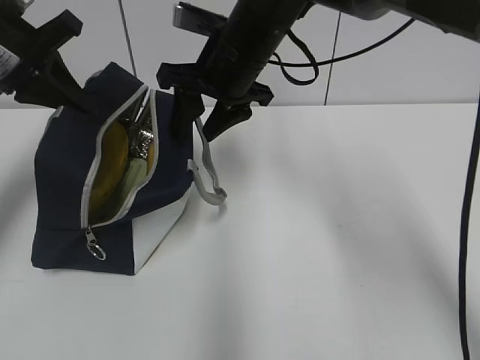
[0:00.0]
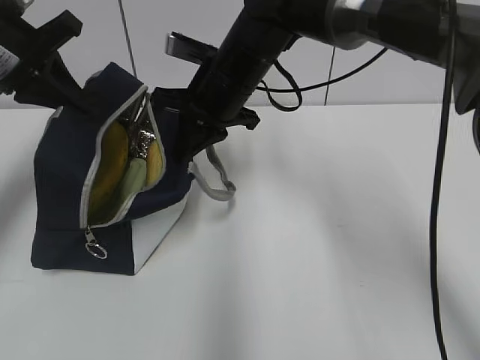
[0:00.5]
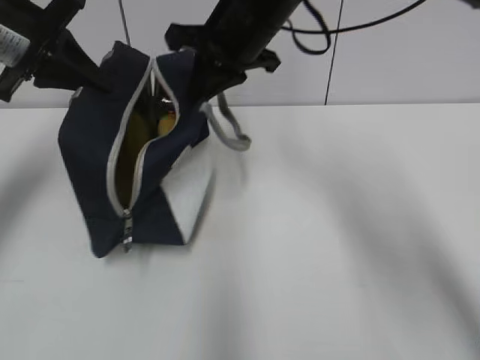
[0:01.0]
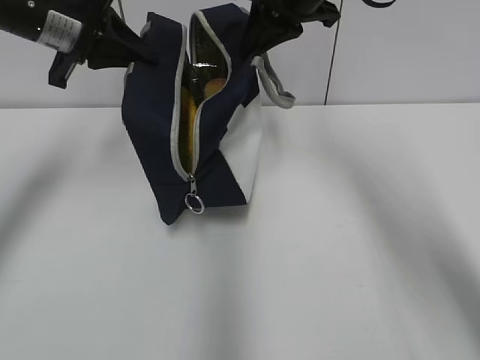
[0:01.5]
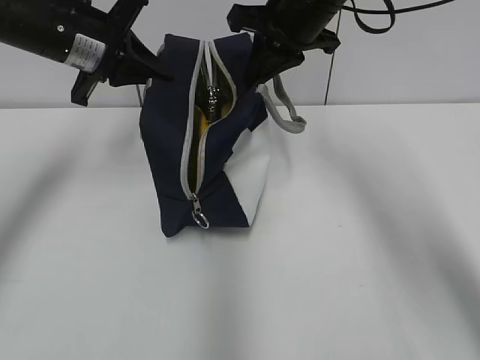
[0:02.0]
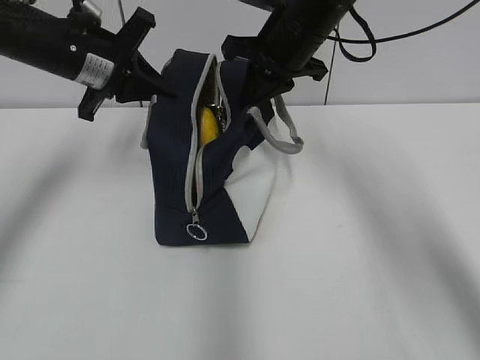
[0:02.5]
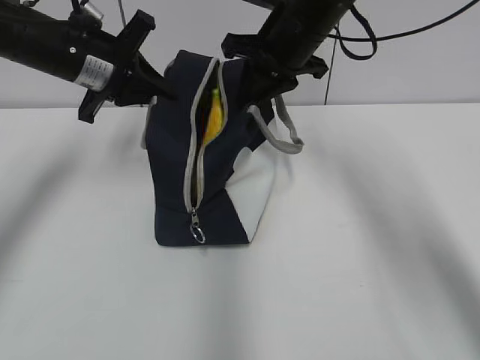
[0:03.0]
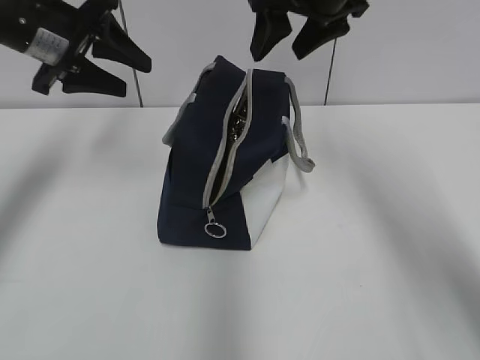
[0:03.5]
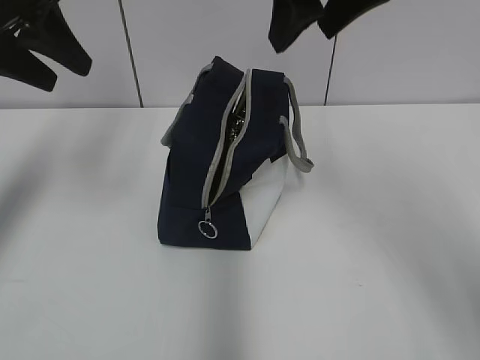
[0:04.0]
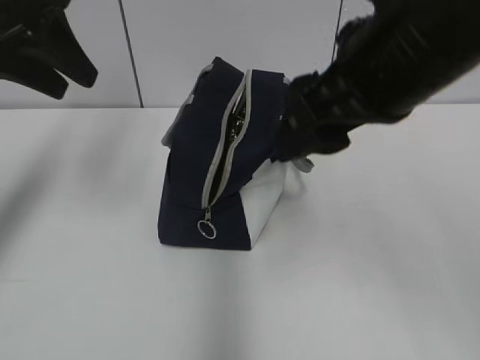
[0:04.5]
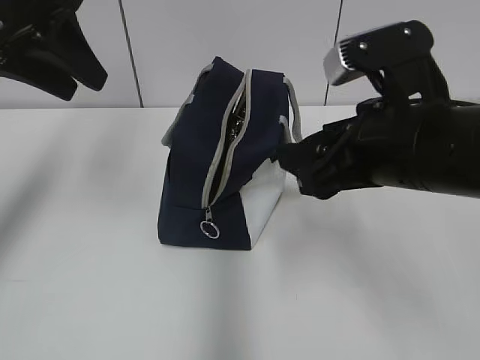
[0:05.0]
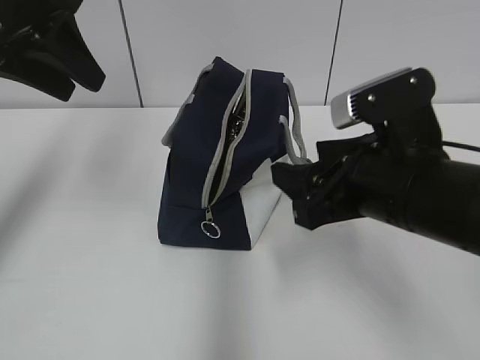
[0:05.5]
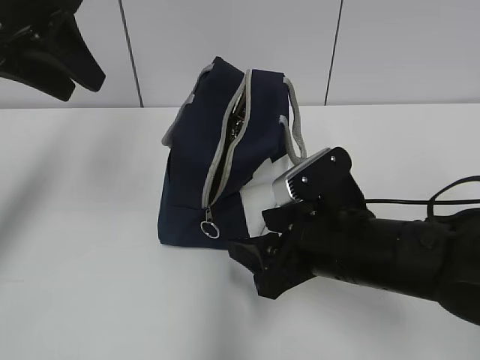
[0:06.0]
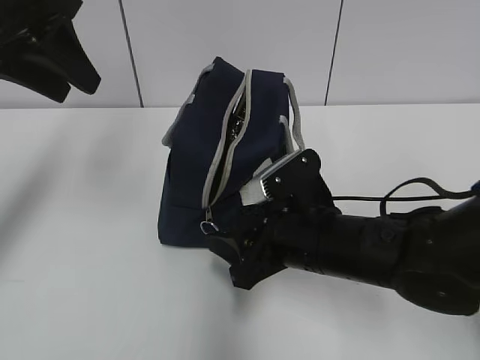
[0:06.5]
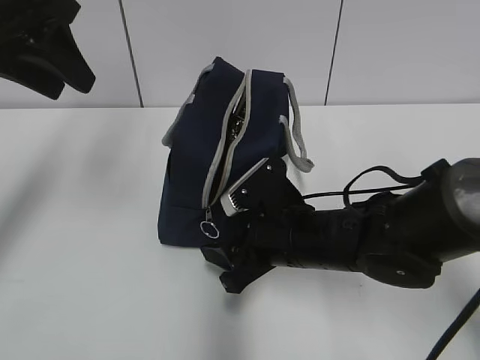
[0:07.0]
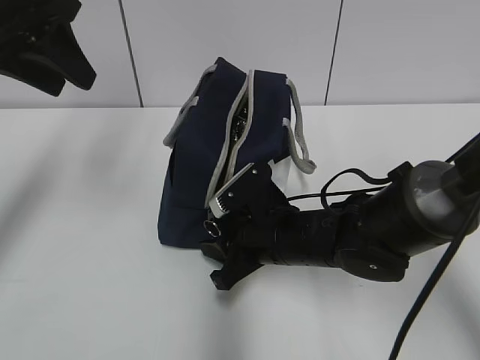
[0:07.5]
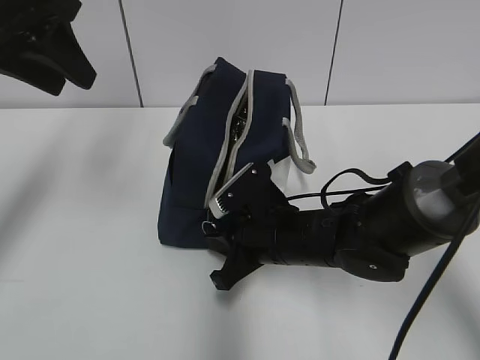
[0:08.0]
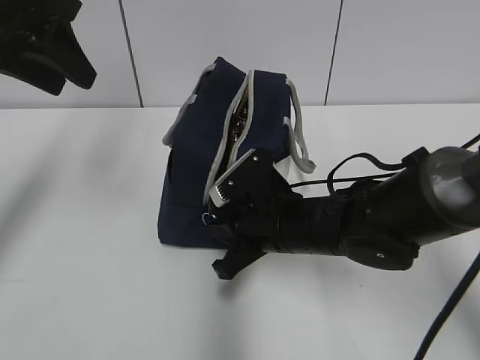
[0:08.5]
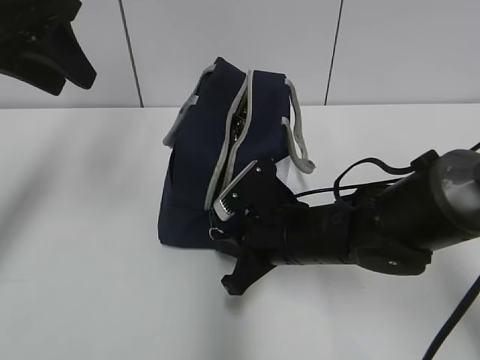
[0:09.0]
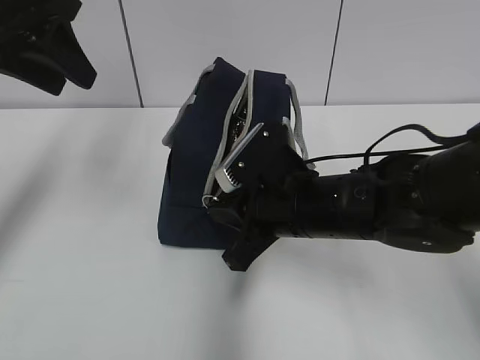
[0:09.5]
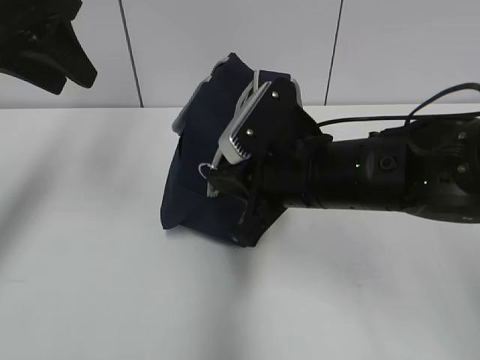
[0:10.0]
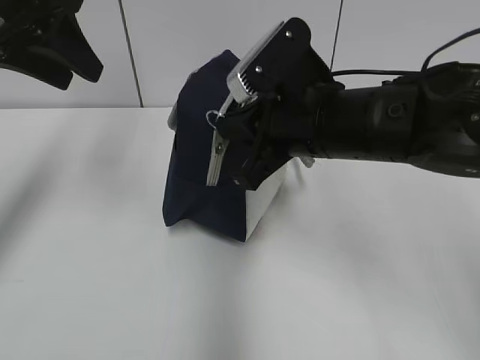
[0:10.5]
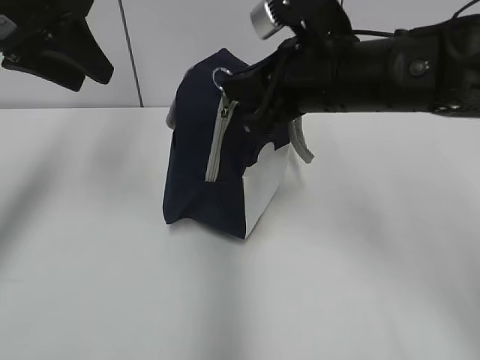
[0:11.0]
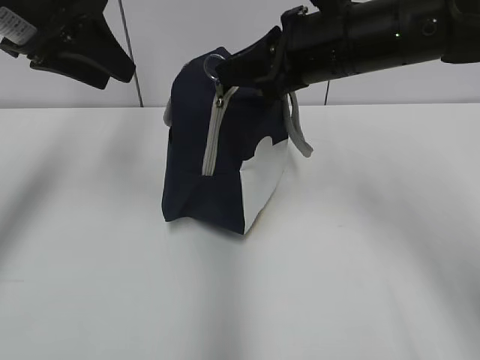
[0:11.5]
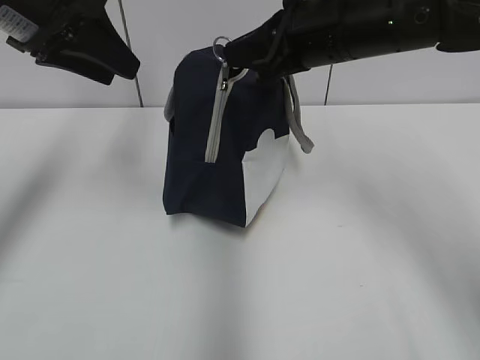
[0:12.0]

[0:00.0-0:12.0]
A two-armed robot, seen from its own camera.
0:00.0 to 0:02.0: The right gripper travels to the right and upward by roughly 10 cm, and closes up. The left gripper travels to the right by approximately 5 cm.
0:02.0 to 0:04.0: The left gripper shifts about 10 cm upward, backward and to the left, and opens its fingers. The right gripper heads backward and upward, covering roughly 10 cm, and opens up.
0:04.0 to 0:06.0: The right gripper travels downward and backward by approximately 25 cm.
0:06.0 to 0:08.0: The right gripper shifts roughly 10 cm forward and downward, and closes.
0:08.0 to 0:10.0: The right gripper shifts some 10 cm upward.
0:10.0 to 0:12.0: The right gripper shifts approximately 15 cm upward and forward.

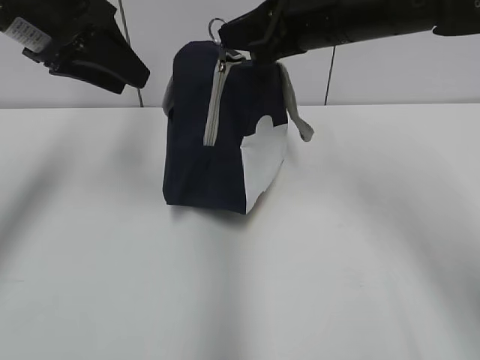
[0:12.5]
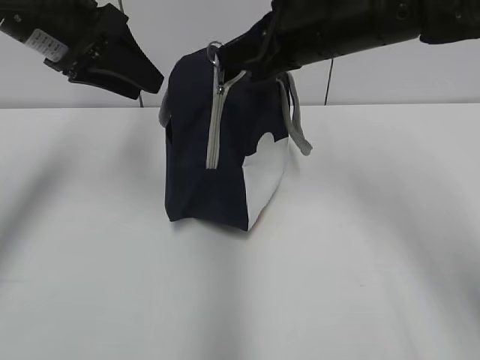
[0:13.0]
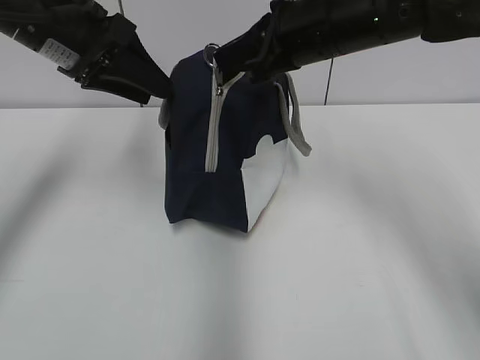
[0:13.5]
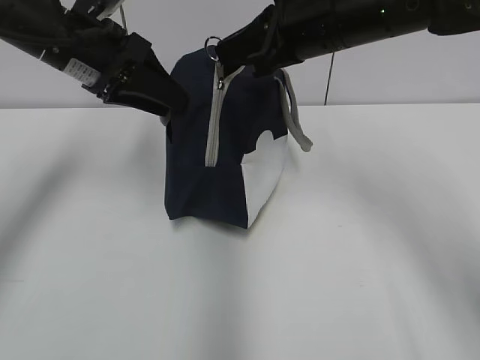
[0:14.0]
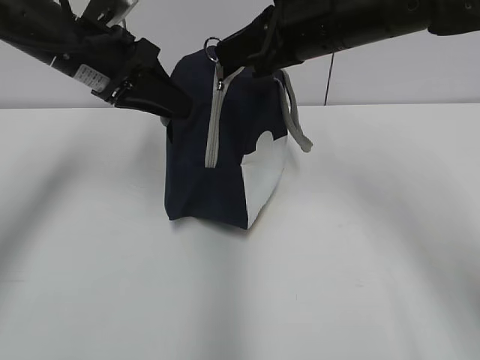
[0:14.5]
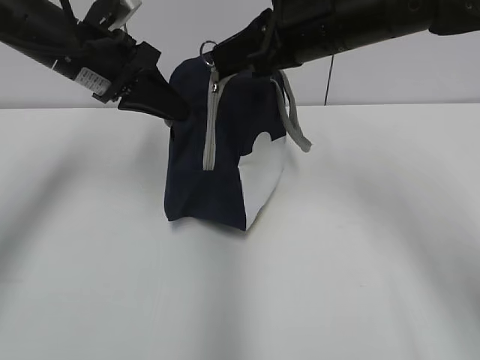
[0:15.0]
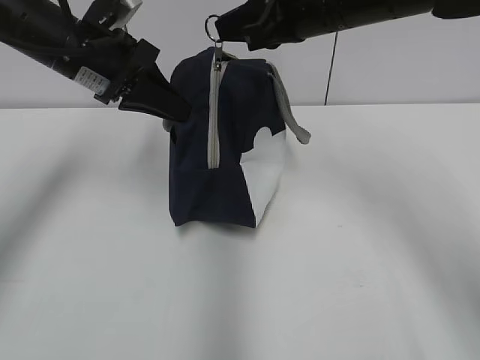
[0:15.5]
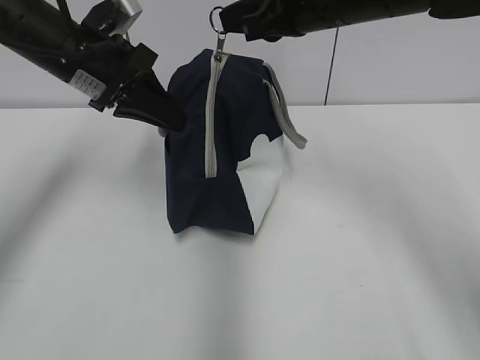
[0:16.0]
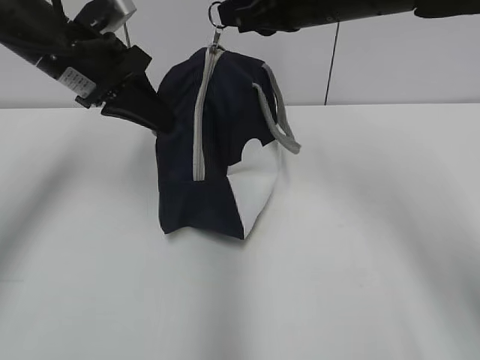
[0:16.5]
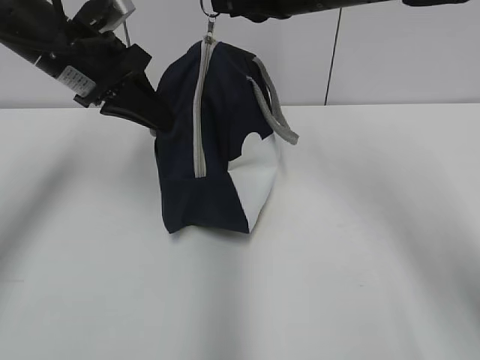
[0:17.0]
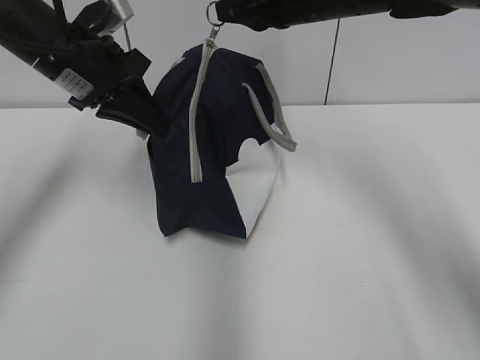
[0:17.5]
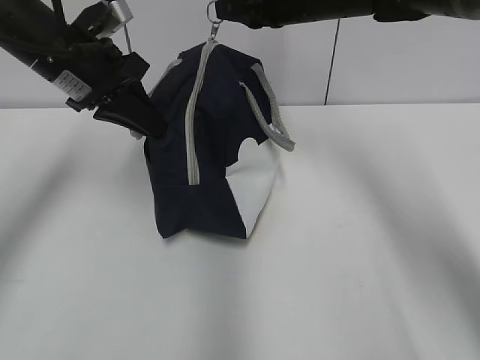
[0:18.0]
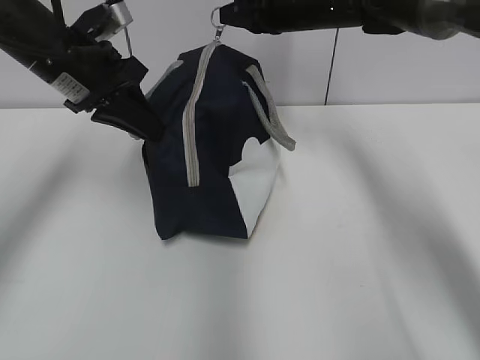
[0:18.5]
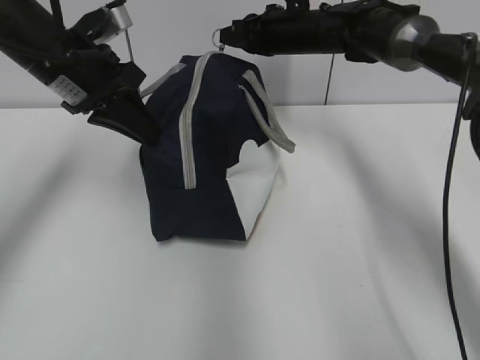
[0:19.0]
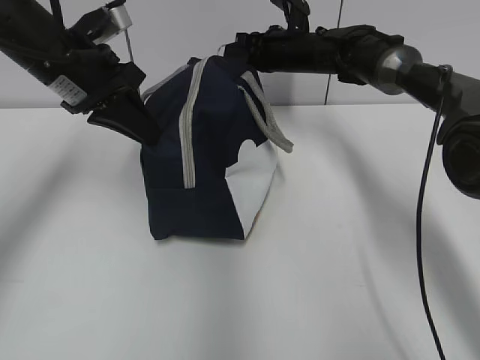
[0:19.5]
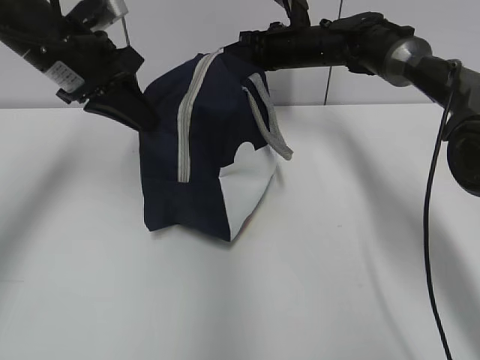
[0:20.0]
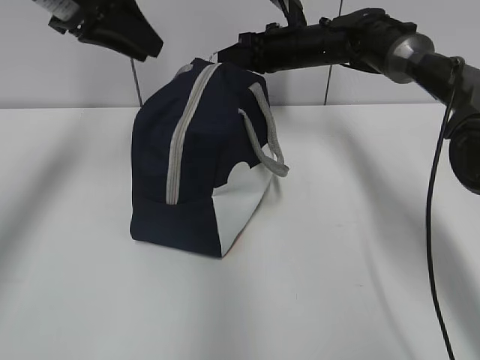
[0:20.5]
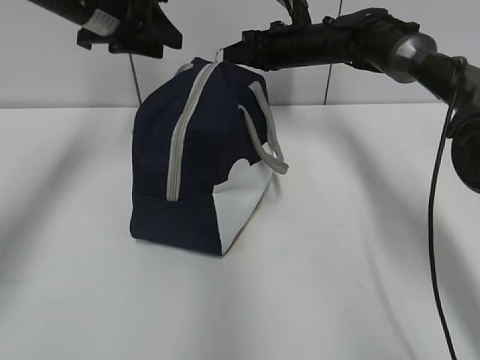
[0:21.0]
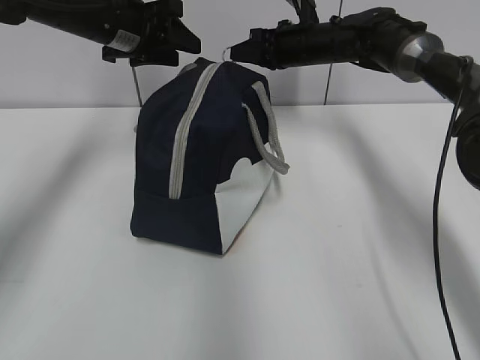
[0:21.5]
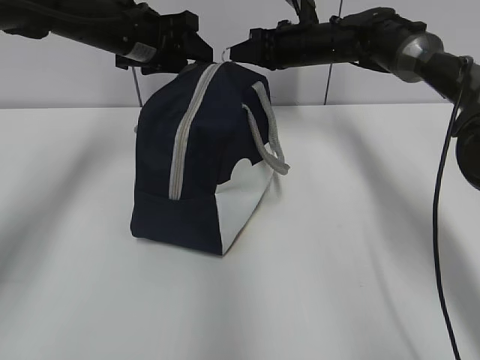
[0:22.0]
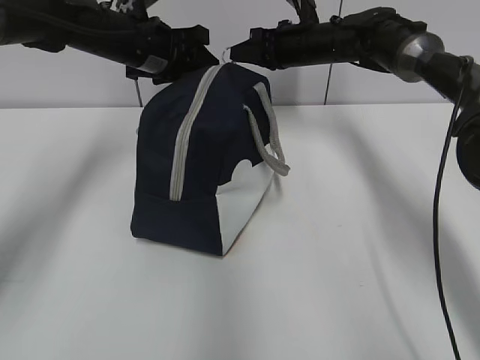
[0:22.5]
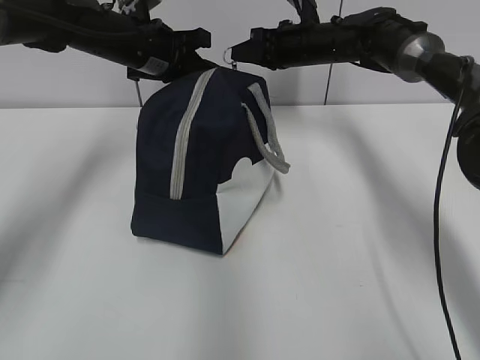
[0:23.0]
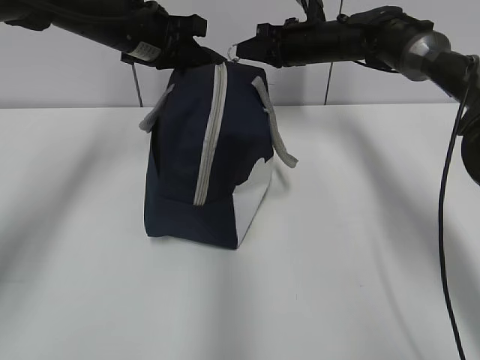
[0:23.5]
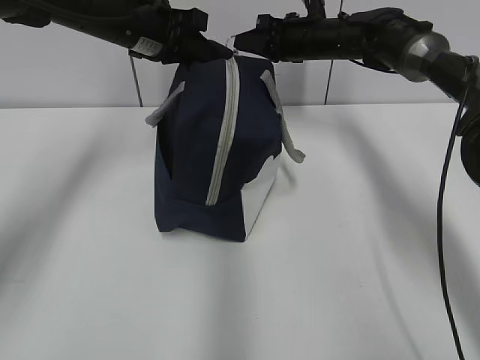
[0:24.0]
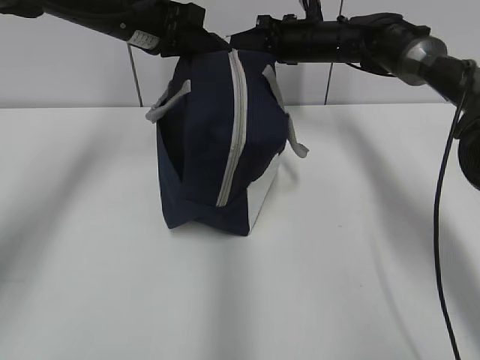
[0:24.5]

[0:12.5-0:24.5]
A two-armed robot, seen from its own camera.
0:12.5 to 0:14.5: The left gripper is displaced downward by roughly 5 cm.
0:14.5 to 0:16.5: The left gripper closes.
0:16.5 to 0:18.5: The right gripper moves forward, about 10 cm.
0:18.5 to 0:20.5: The left gripper moves upward, approximately 5 cm, and opens its fingers, while the right gripper travels downward by about 5 cm.
0:20.5 to 0:22.5: The left gripper moves downward and forward, some 15 cm.
0:22.5 to 0:24.5: The left gripper changes place by roughly 5 cm, and closes.

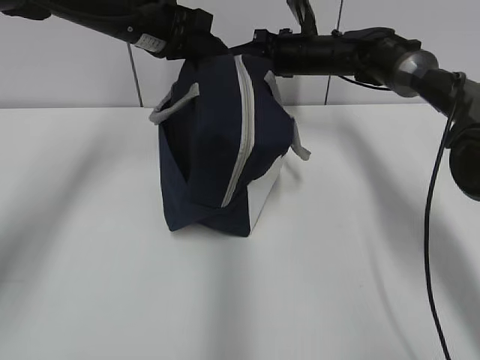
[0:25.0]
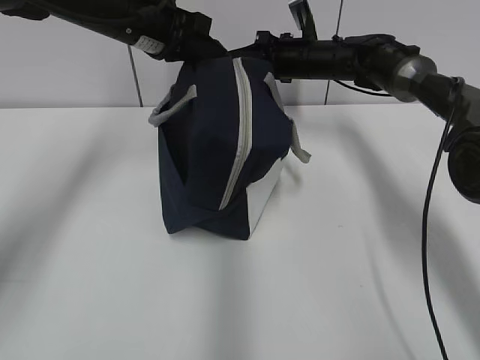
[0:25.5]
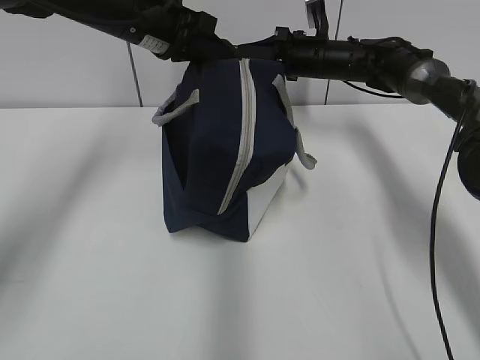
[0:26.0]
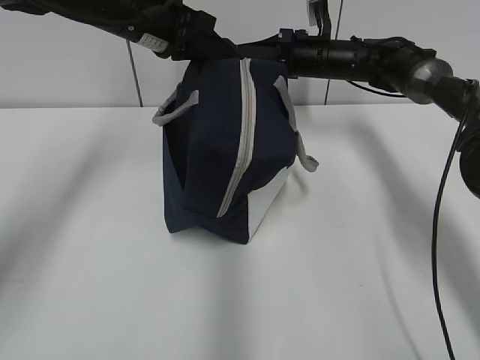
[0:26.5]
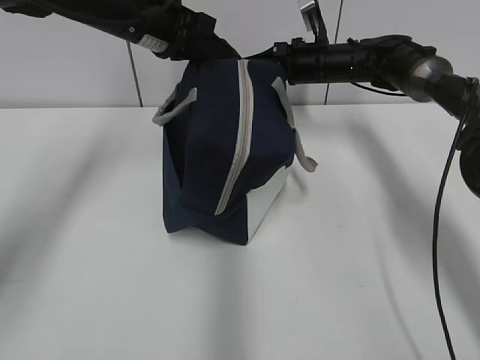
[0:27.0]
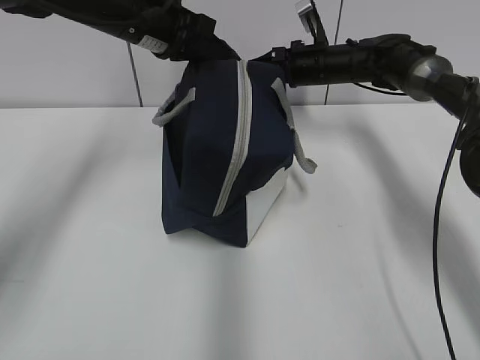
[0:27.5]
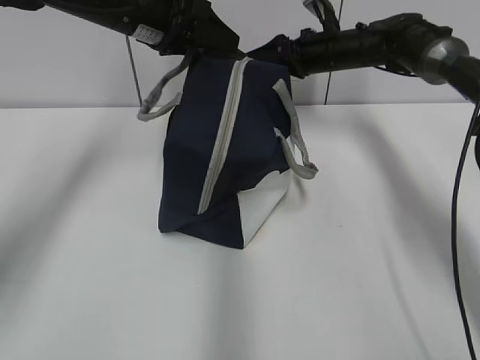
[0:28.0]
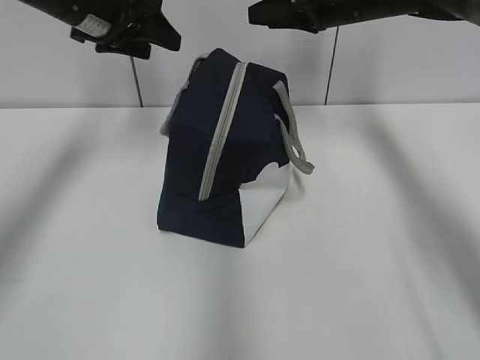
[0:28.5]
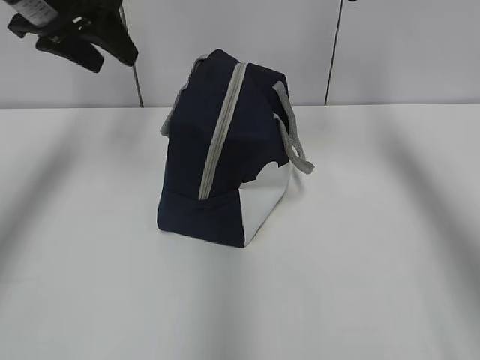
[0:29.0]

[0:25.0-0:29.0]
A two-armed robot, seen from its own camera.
0:25.0 to 0:27.0: The grippers stay close to where they were, moving slightly.
0:27.0 to 0:29.0: The right gripper shifts about 20 cm upward and backward, and opens. Meanwhile the left gripper goes approximately 10 cm to the left and upward, and opens its fingers.
